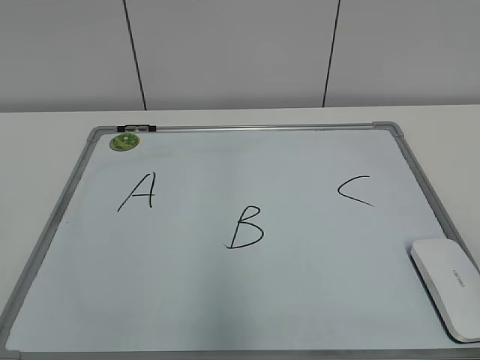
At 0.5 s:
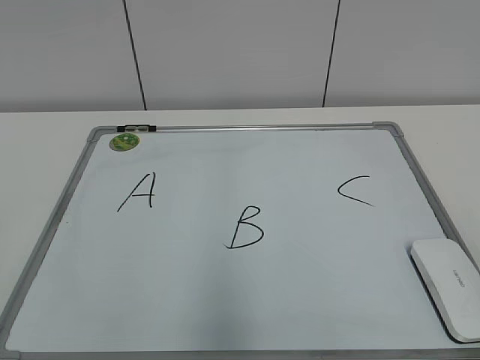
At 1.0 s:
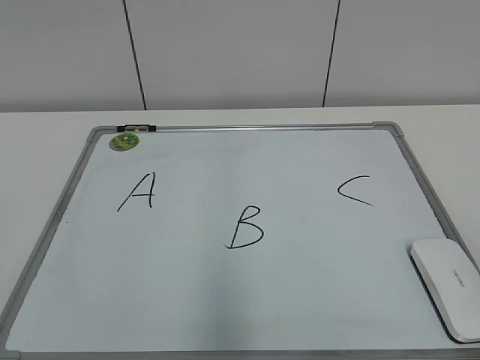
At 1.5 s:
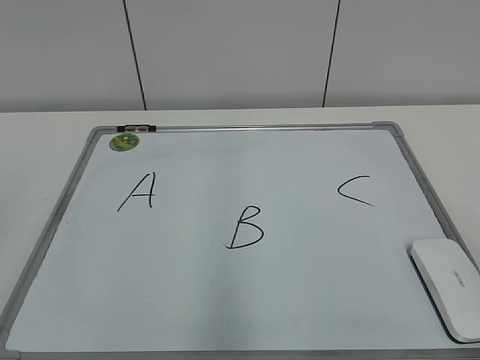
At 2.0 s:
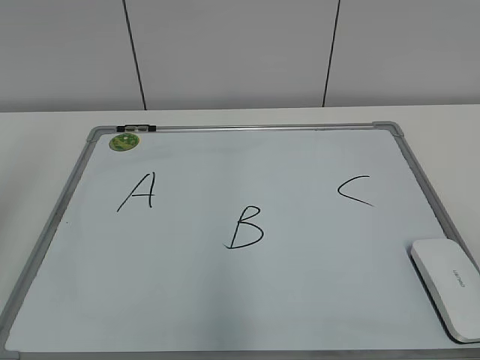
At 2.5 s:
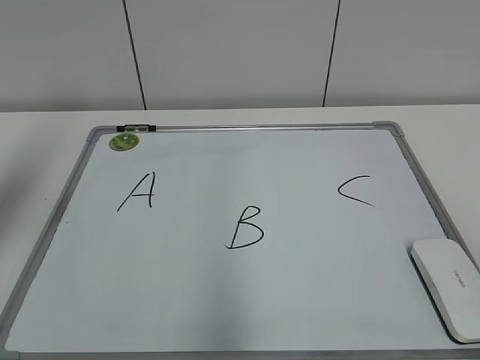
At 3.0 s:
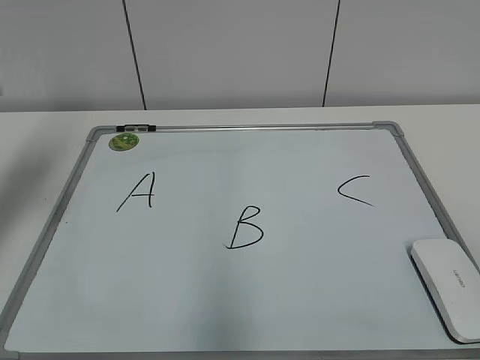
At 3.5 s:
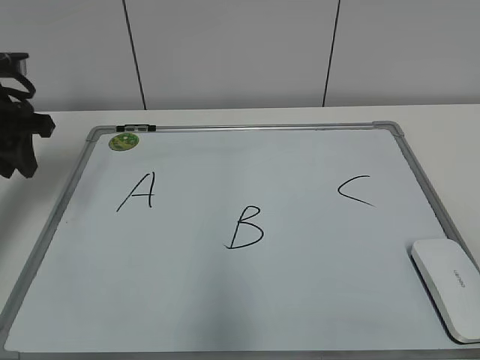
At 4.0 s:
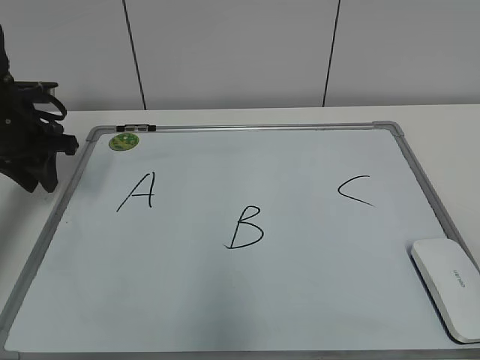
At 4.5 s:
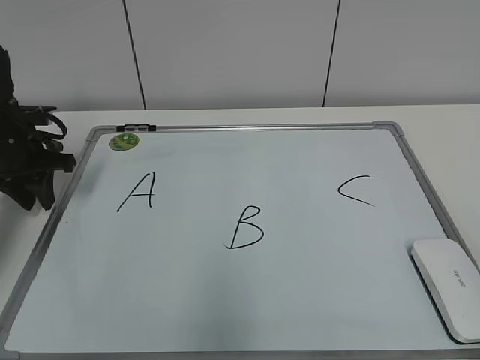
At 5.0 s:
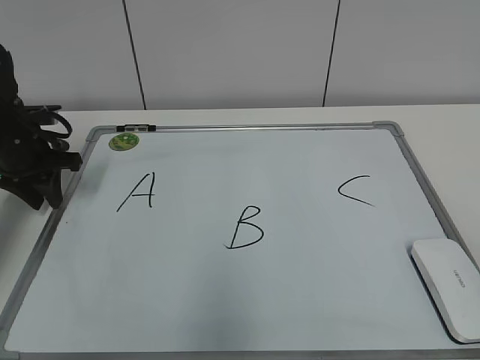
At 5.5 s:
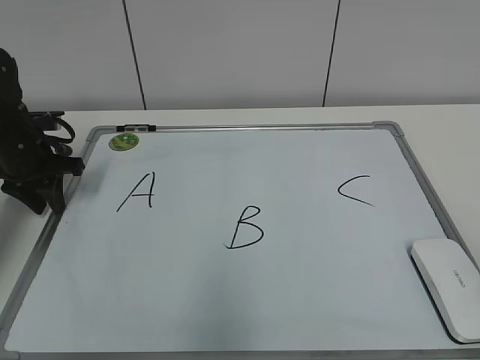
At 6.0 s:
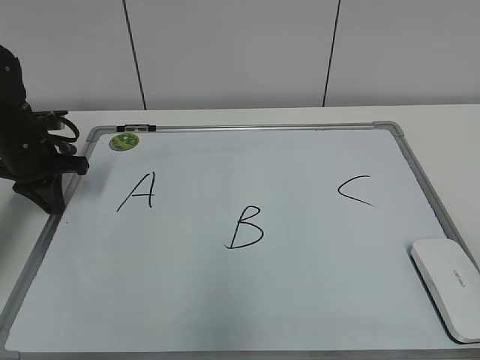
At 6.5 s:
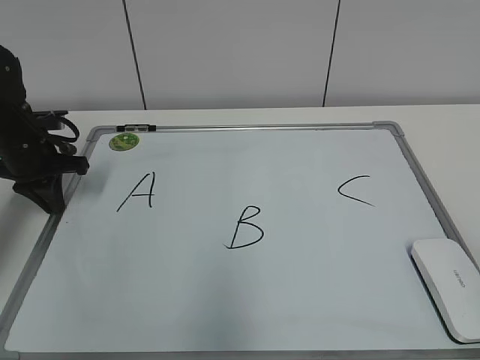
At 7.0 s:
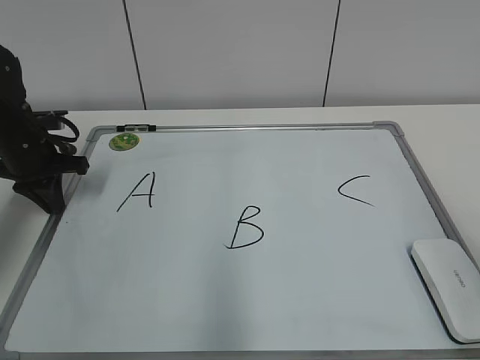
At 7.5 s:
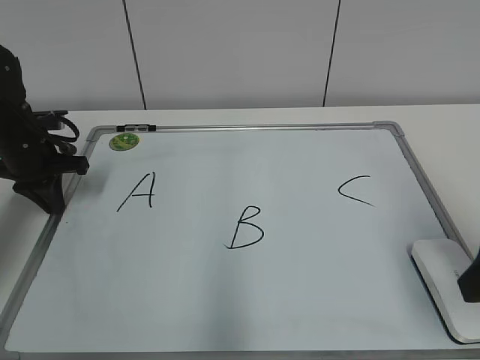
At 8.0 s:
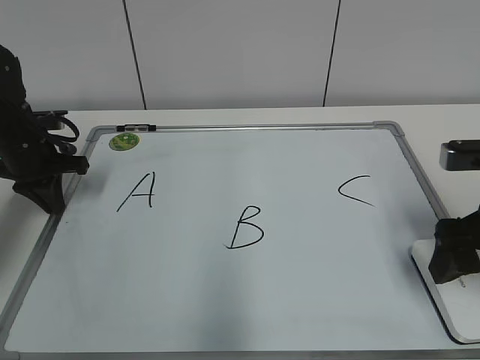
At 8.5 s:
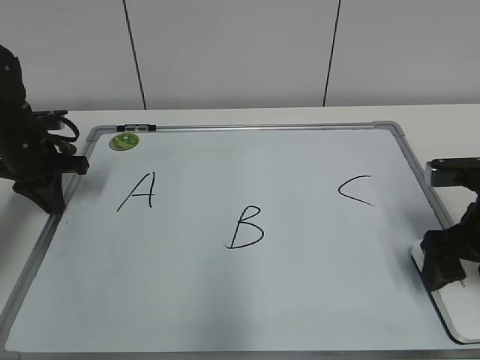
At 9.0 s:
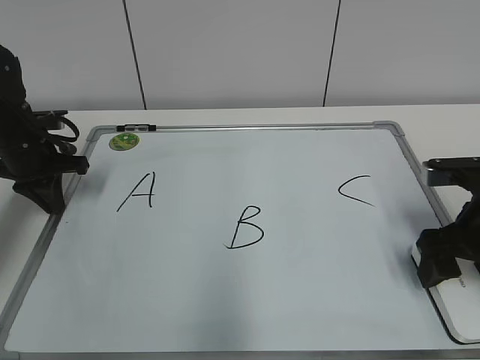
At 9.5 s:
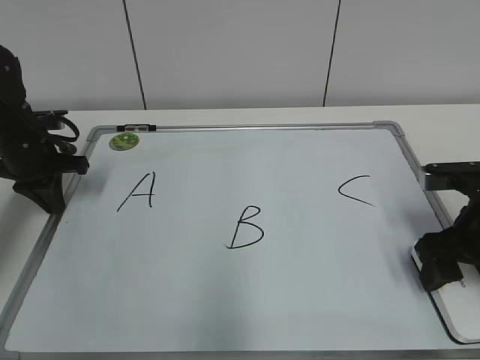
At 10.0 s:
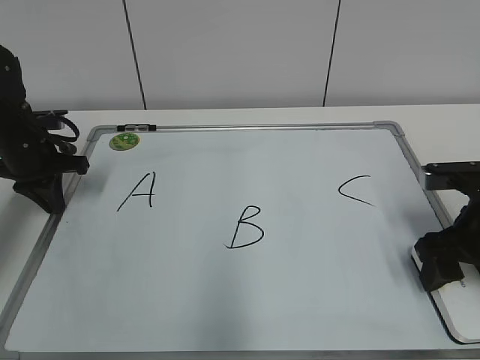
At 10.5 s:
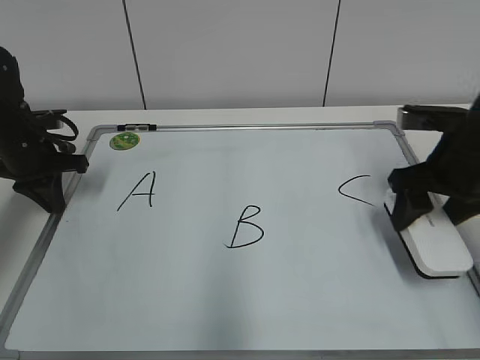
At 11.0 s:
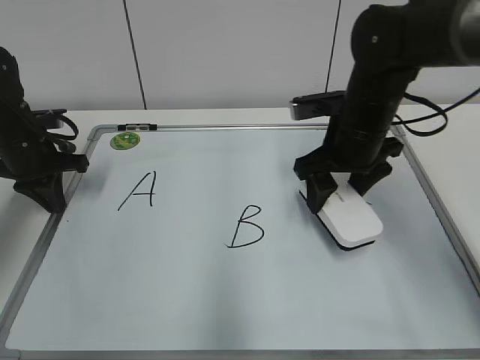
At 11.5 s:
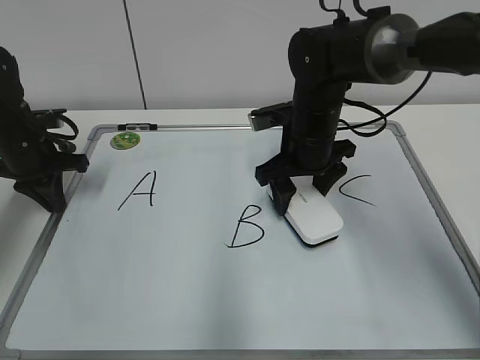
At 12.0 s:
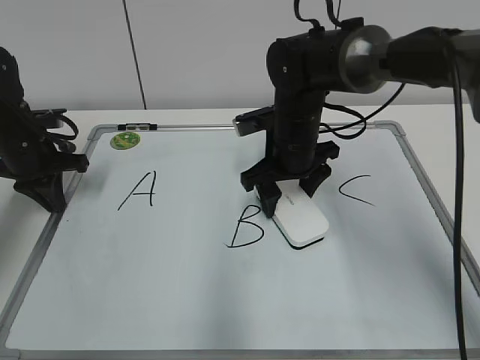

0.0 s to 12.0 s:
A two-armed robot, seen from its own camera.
Task of the whole recording: pick up the eraser on the blackboard and erase the letter "B".
Step, 0.0 to 5.5 s: Hold the drawing board steady with your left hand.
Step, 6.0 to 9.5 s: Grab the eraser with your right hand.
2.0 to 4.0 s: The left gripper travels forward and downward by some 30 cm.
4.0 to 6.0 s: The left gripper closes.
6.0 to 8.0 s: The right gripper shifts about 25 cm forward, and opens up.
8.0 to 10.0 s: The right gripper closes up.
10.0 to 12.0 s: The right gripper travels to the left and forward by some 25 cm.

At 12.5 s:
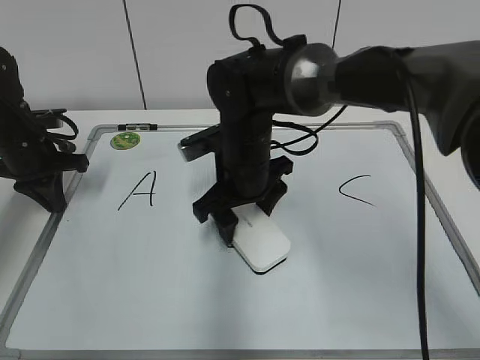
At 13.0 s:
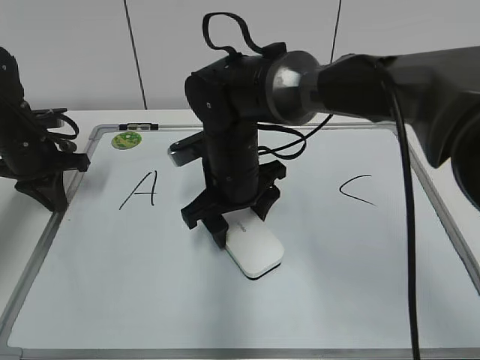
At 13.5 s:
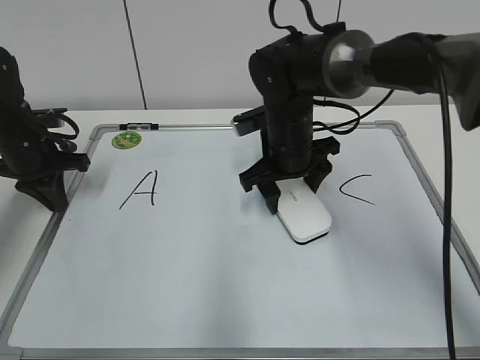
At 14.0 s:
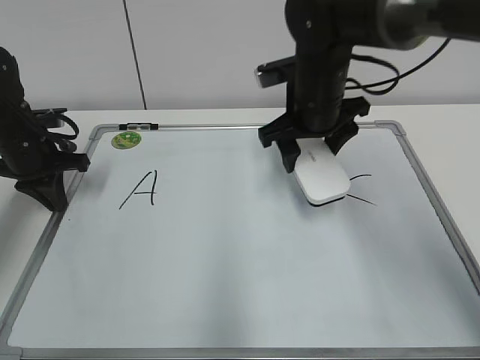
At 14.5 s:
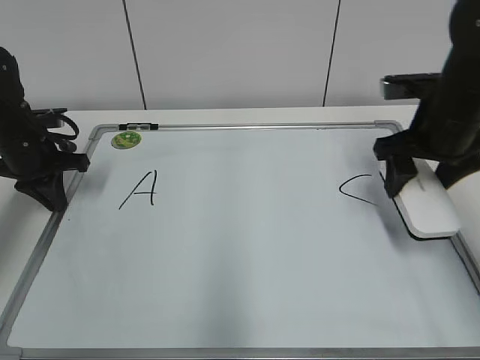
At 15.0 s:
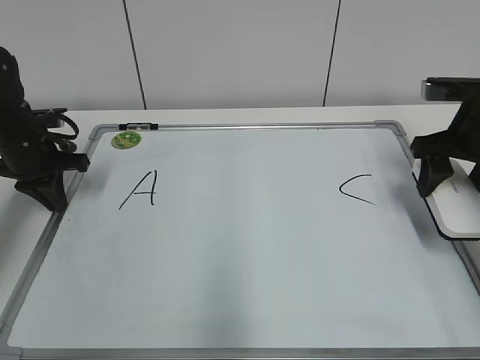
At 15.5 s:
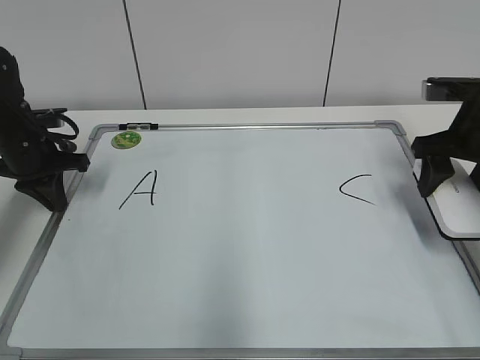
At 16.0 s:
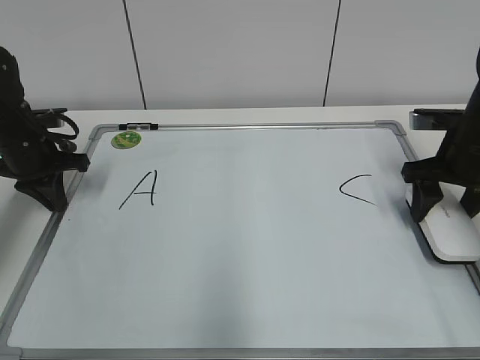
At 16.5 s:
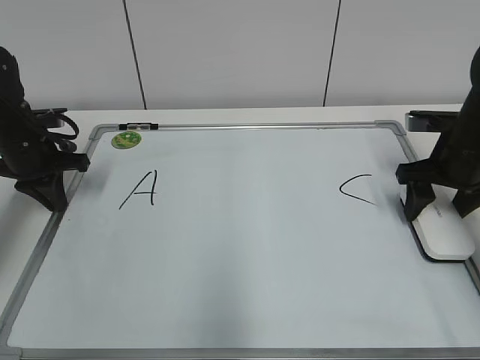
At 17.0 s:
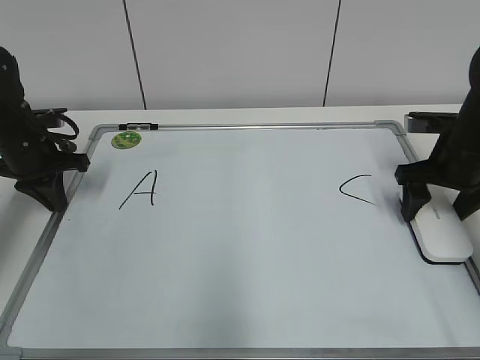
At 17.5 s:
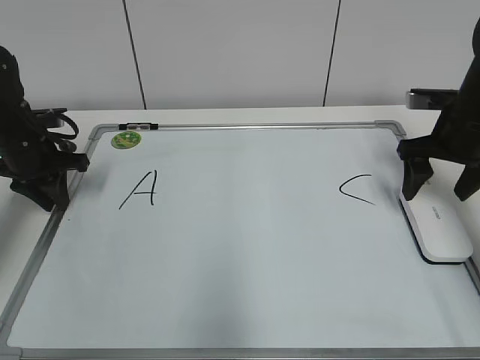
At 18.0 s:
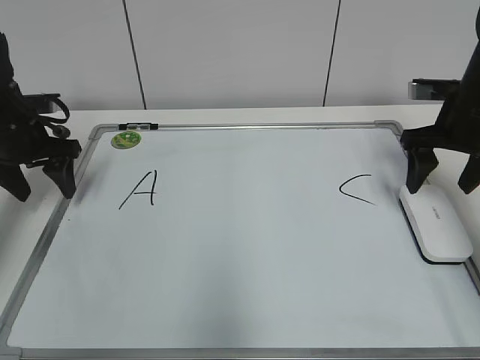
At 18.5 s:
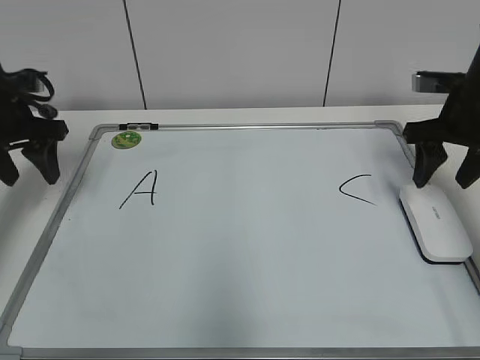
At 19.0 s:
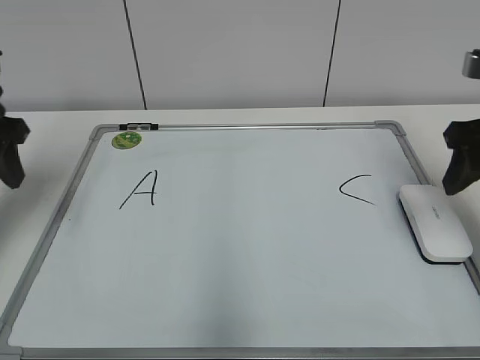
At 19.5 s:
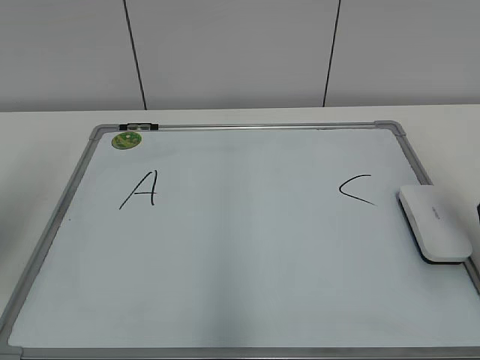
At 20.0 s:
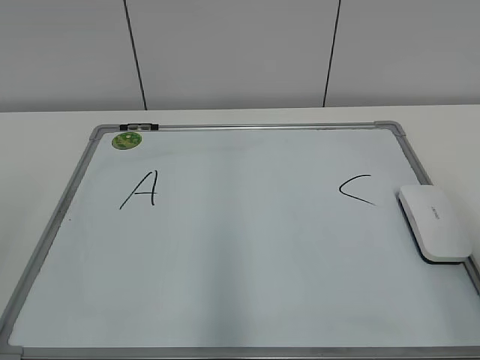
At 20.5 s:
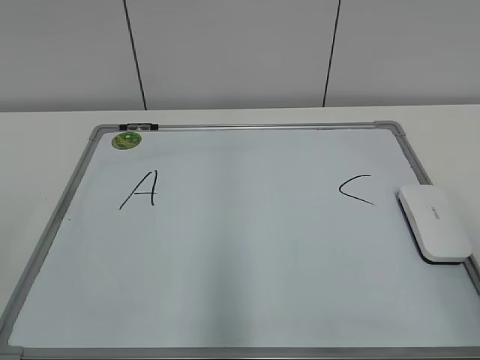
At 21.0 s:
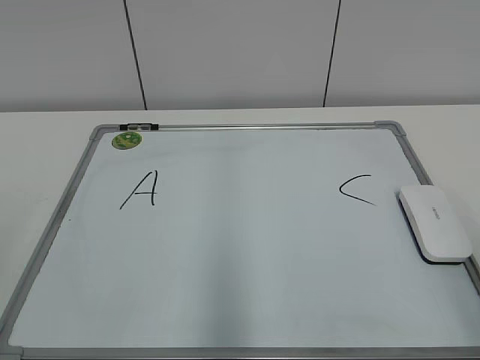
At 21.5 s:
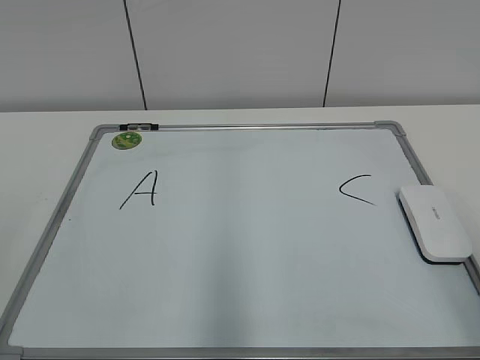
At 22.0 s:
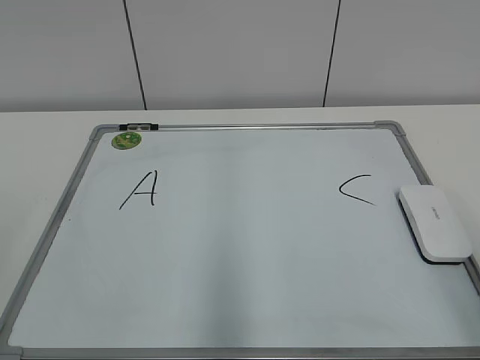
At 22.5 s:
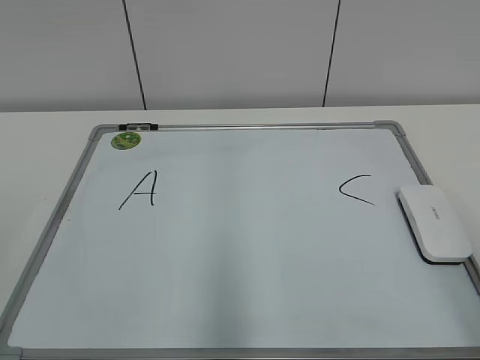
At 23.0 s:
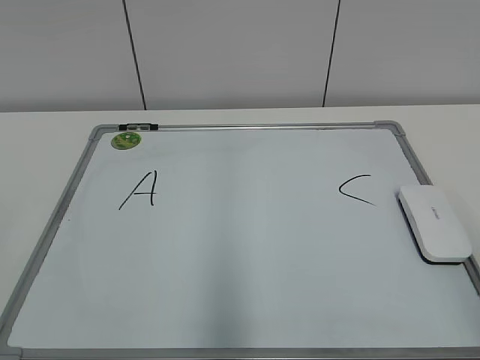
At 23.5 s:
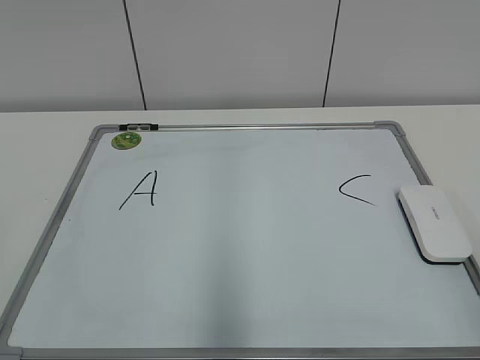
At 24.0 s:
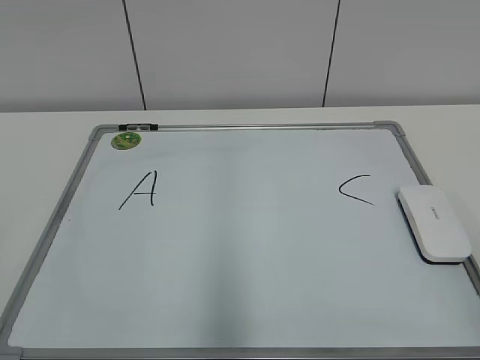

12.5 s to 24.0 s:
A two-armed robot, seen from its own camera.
Task of the whole recording: pick up the eraser on the blackboard and erase the letter "B".
Step, 14.0 to 16.5 s: Put down the eraser with your right hand.
12.5 to 14.5 s: The right gripper is displaced to the right by about 25 cm.
14.5 to 16.5 s: The right gripper travels downward by about 5 cm.
16.5 to 18.5 s: The two grippers go some 5 cm upward. The right gripper opens and closes again. The left gripper opens up.
18.5 to 20.0 s: Both grippers move backward, some 30 cm.

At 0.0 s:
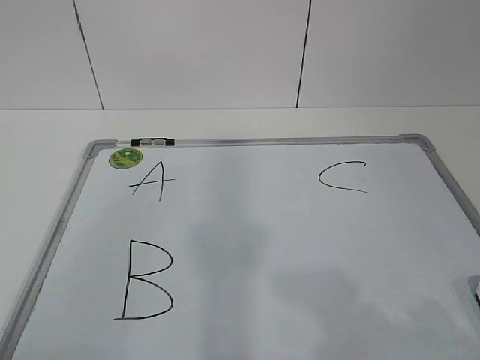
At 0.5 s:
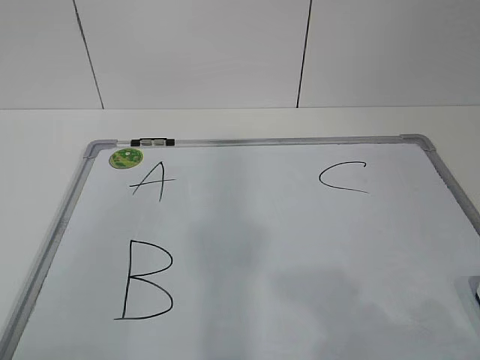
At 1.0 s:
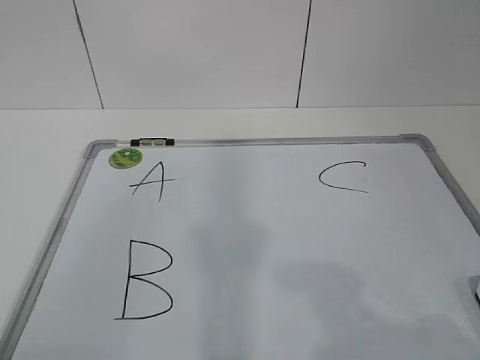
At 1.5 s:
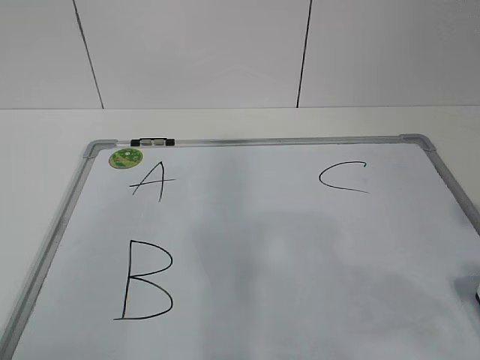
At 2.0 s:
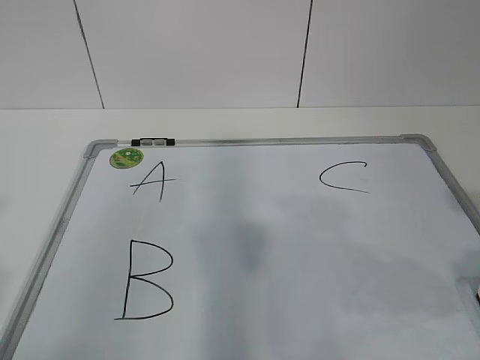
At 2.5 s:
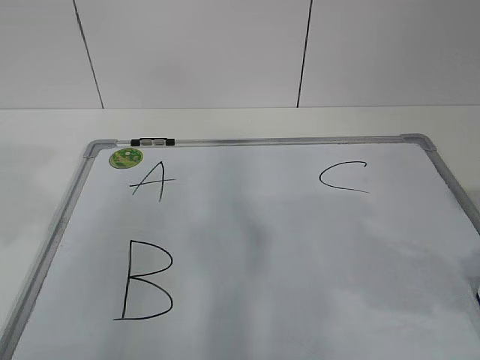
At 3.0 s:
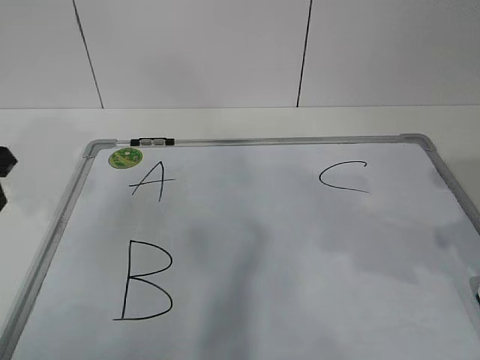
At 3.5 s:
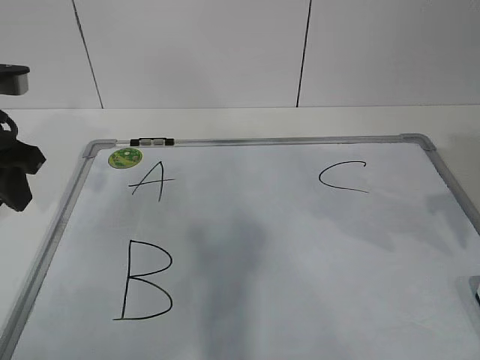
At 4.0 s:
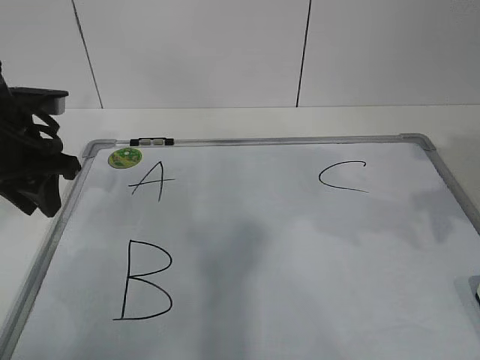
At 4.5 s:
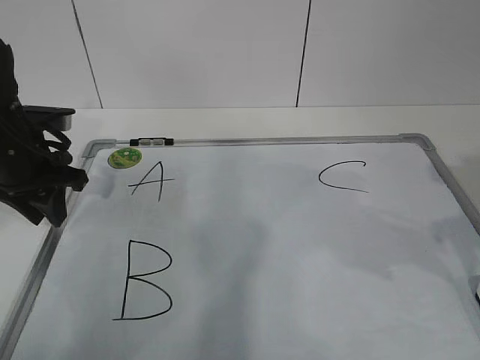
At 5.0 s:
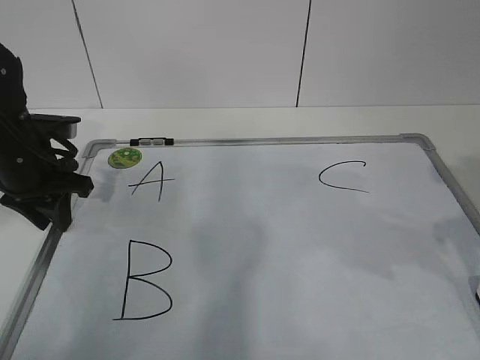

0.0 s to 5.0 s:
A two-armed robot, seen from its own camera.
Task of the whole recording: pick up the eraser on the blackboard and erase the letter "B".
2.5 to 5.0 s: The left gripper travels forward and downward by approximately 25 cm.
